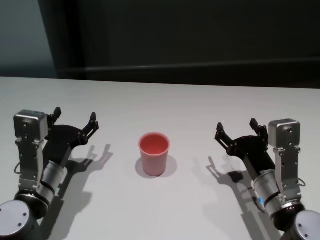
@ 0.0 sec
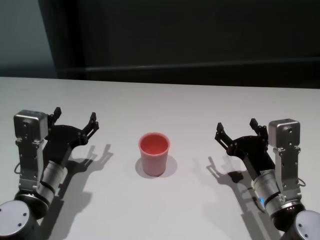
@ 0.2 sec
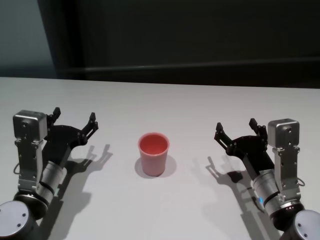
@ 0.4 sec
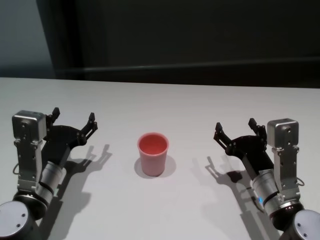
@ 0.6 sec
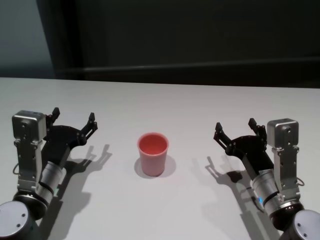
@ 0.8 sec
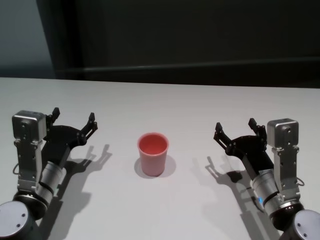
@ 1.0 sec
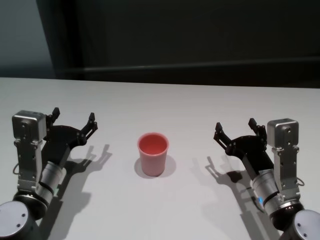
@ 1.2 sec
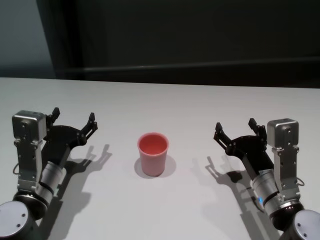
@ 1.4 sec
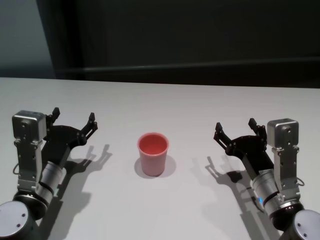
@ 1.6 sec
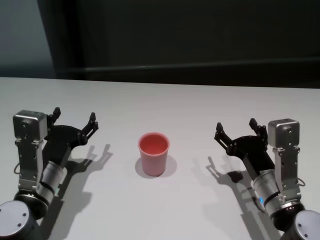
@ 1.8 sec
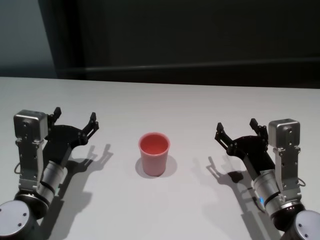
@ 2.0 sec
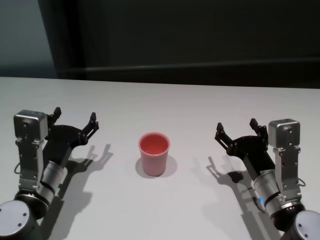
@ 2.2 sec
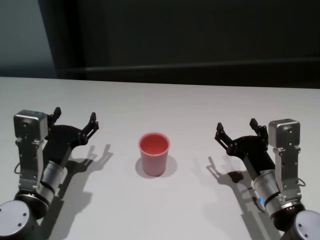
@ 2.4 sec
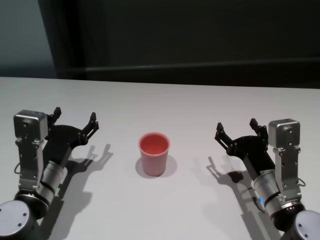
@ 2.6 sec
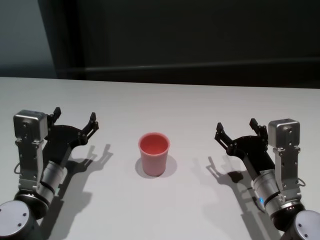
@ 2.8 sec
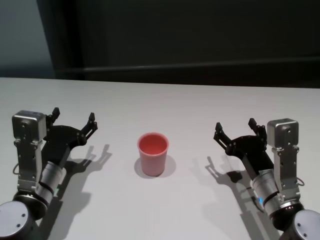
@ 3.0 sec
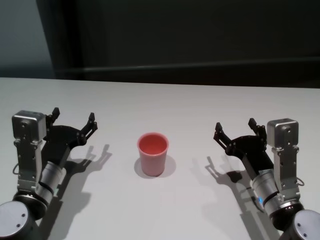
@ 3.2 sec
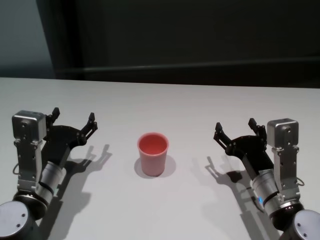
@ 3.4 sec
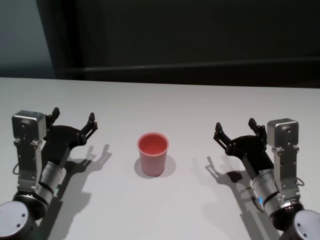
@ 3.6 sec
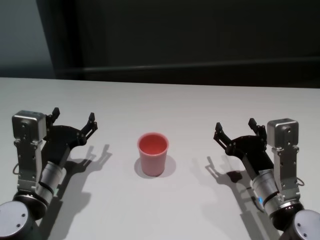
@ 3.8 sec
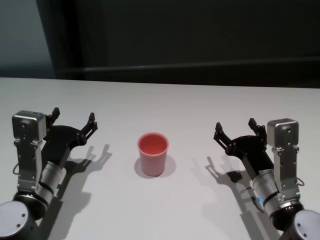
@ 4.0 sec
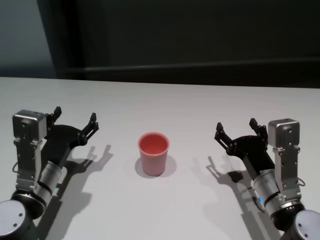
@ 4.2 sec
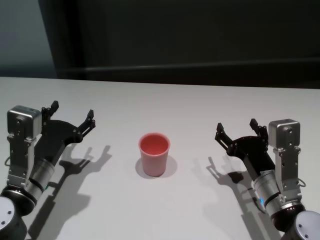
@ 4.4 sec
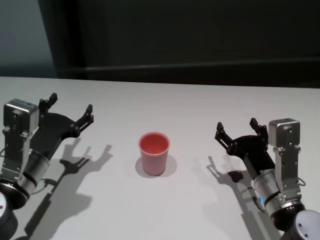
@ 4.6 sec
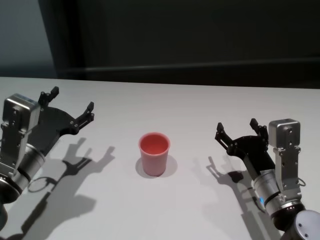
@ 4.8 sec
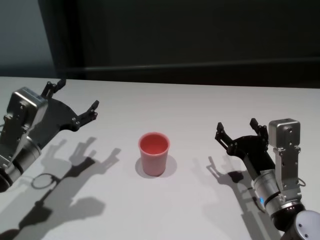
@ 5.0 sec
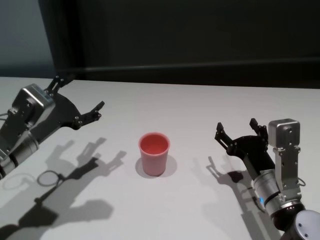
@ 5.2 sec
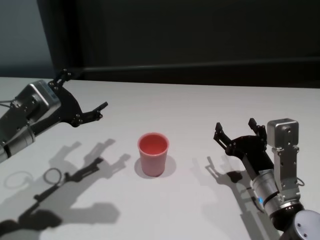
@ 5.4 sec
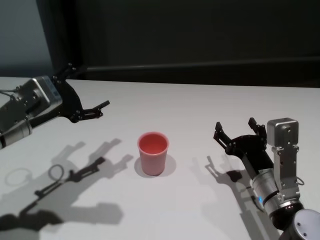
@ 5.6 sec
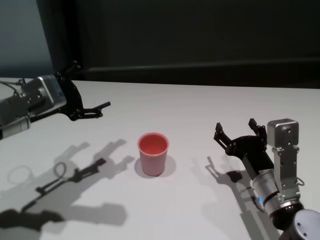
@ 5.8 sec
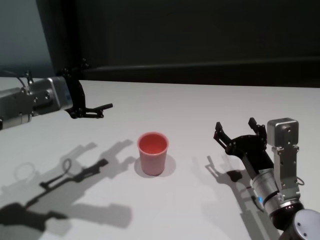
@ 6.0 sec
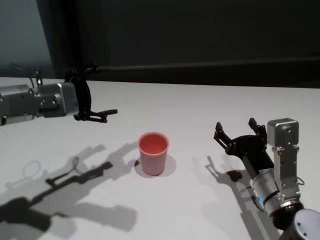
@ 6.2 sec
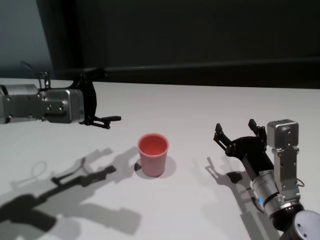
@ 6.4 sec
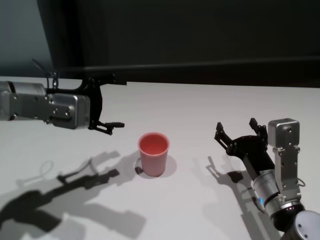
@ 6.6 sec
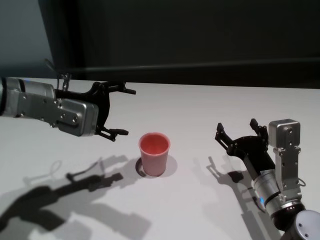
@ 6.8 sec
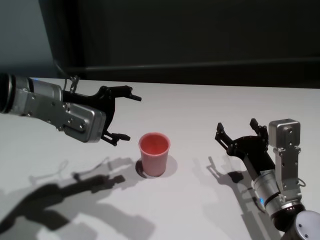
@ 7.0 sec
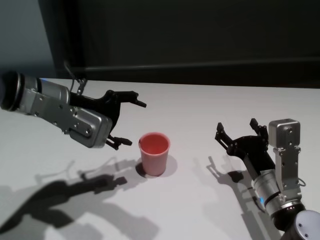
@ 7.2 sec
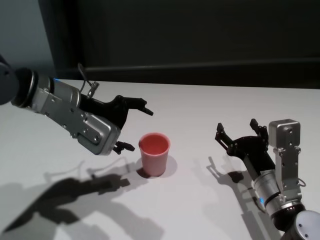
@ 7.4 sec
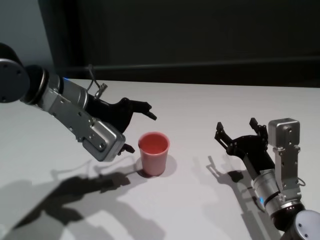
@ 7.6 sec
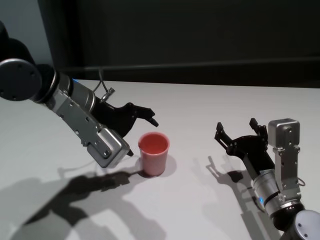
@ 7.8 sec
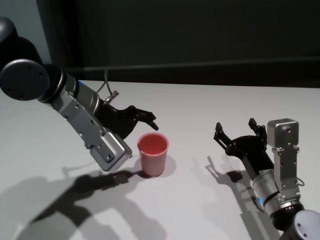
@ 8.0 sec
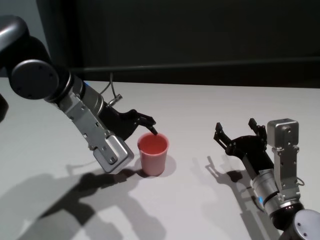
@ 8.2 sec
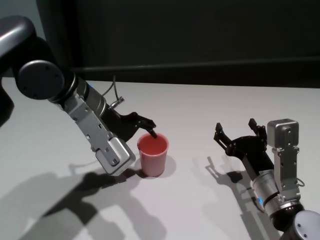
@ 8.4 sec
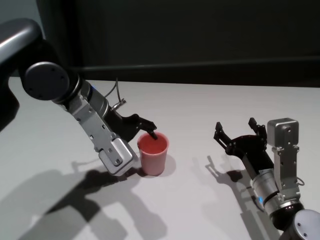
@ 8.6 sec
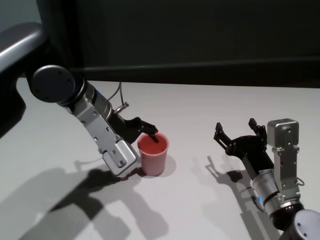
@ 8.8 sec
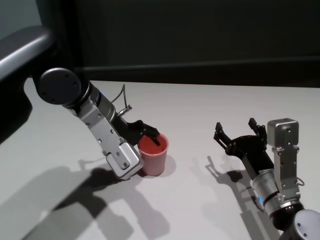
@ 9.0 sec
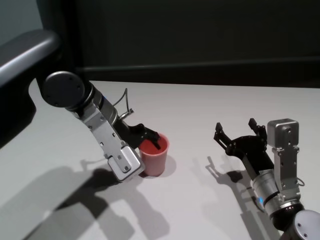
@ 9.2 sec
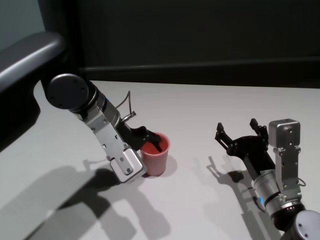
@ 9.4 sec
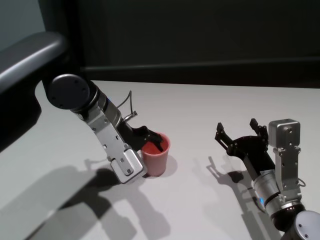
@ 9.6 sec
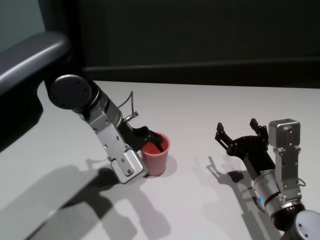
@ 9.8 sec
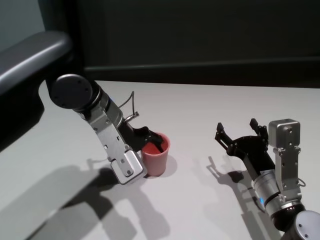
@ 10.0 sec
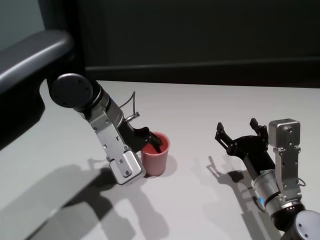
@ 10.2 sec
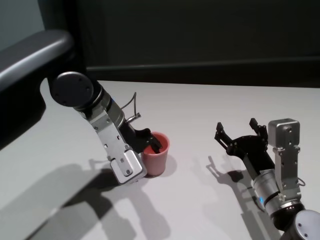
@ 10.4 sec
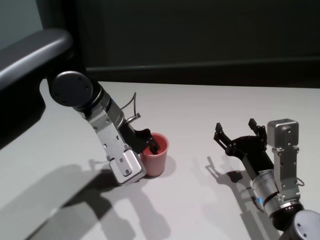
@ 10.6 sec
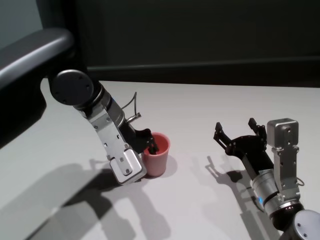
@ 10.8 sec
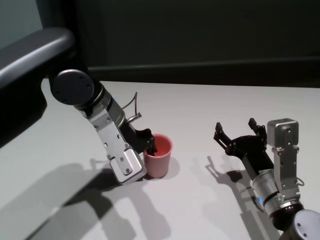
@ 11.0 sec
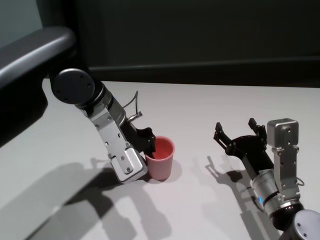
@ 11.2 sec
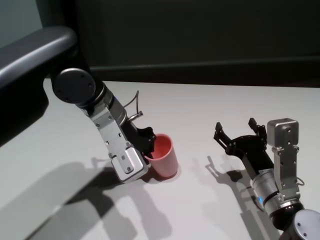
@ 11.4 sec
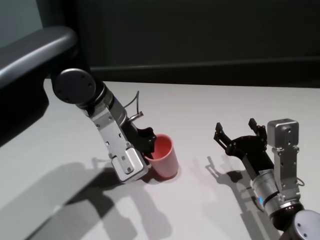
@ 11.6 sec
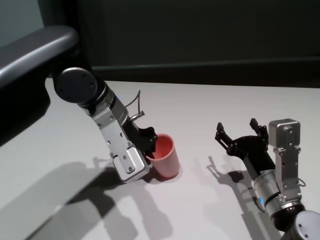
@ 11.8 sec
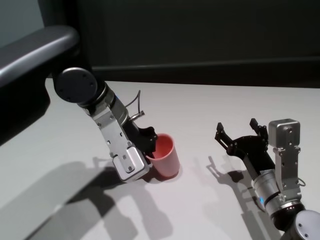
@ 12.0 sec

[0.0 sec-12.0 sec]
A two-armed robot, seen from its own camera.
Task of the whole recording: On the white table pick up the cup with one hand and transfer it to the other hand before turning it over.
Step, 0.0 sec to 11.2 sec: Grasp the cup with left gripper.

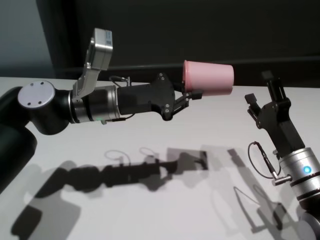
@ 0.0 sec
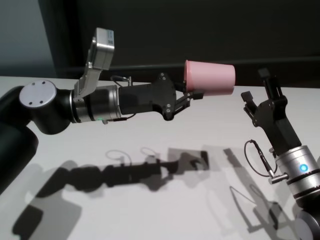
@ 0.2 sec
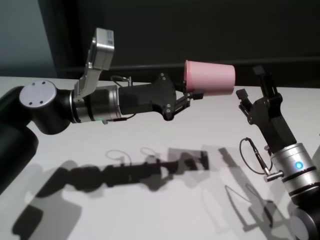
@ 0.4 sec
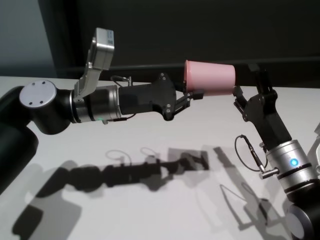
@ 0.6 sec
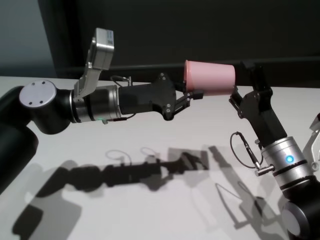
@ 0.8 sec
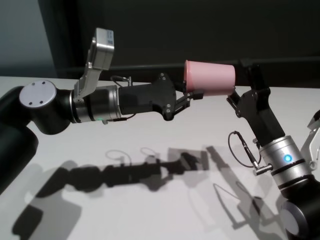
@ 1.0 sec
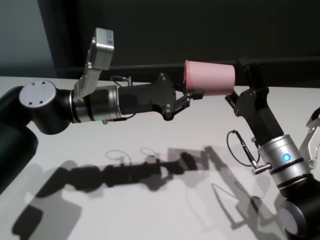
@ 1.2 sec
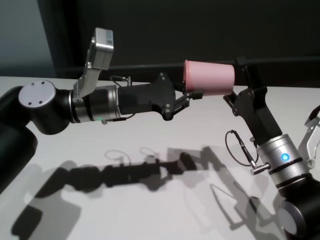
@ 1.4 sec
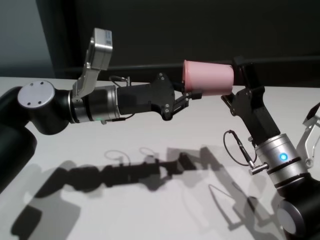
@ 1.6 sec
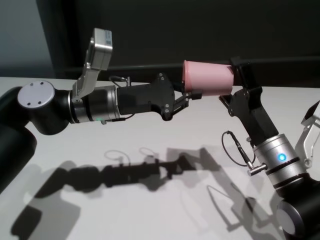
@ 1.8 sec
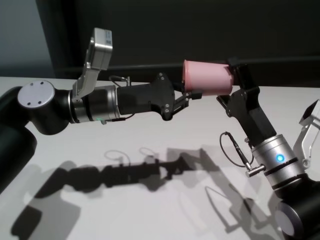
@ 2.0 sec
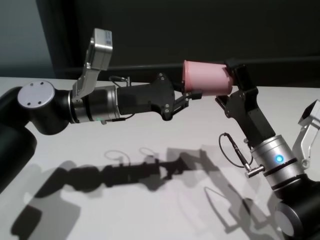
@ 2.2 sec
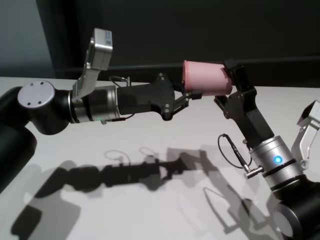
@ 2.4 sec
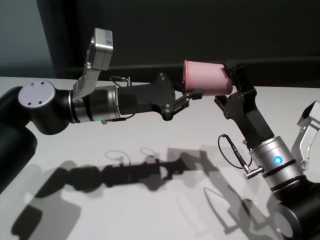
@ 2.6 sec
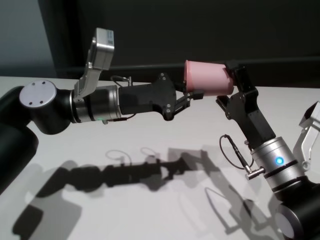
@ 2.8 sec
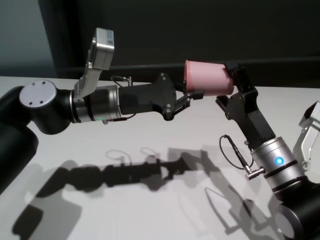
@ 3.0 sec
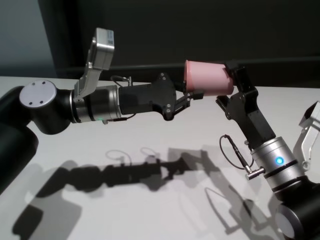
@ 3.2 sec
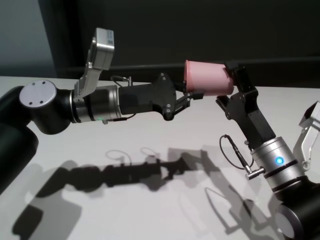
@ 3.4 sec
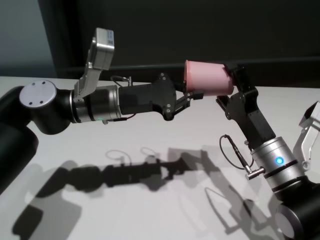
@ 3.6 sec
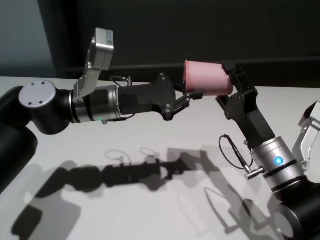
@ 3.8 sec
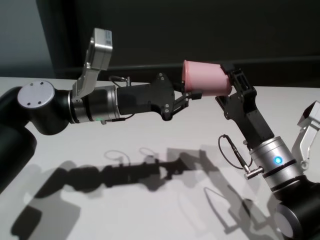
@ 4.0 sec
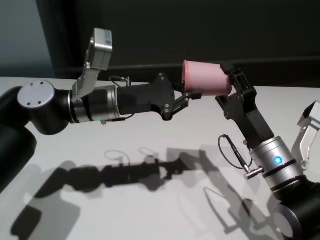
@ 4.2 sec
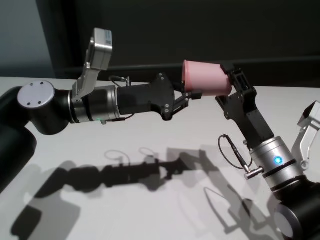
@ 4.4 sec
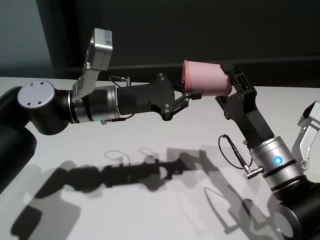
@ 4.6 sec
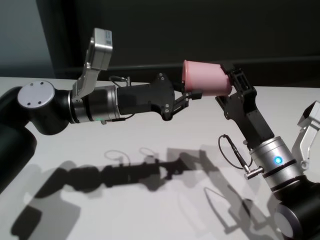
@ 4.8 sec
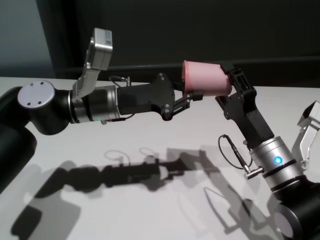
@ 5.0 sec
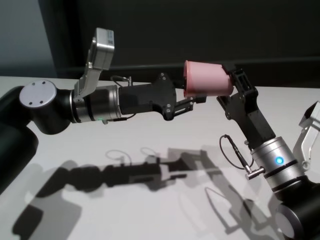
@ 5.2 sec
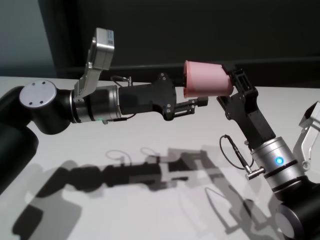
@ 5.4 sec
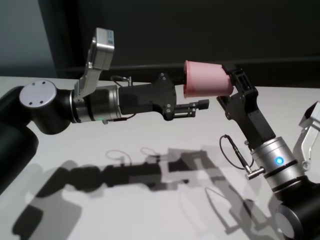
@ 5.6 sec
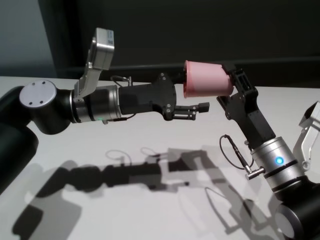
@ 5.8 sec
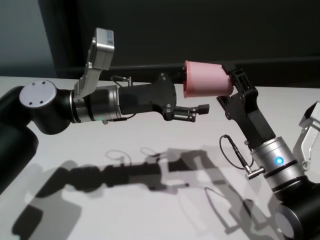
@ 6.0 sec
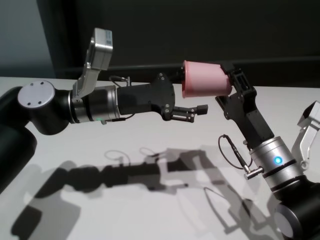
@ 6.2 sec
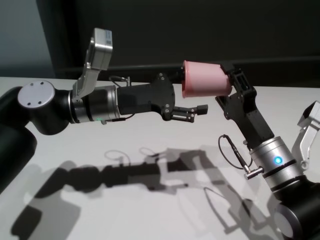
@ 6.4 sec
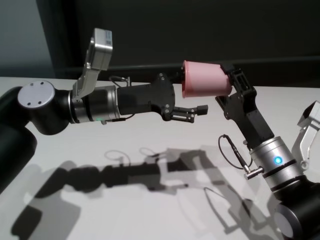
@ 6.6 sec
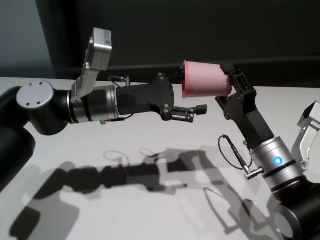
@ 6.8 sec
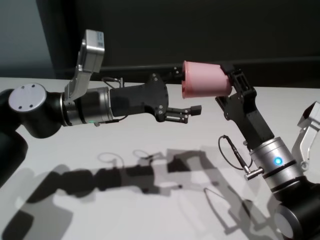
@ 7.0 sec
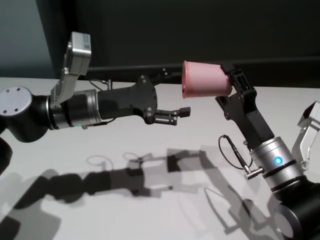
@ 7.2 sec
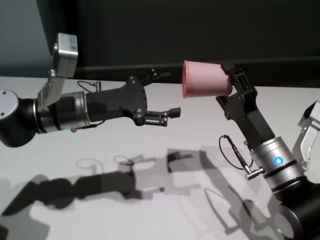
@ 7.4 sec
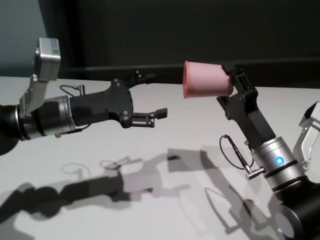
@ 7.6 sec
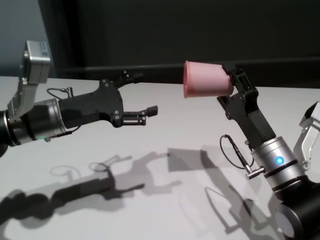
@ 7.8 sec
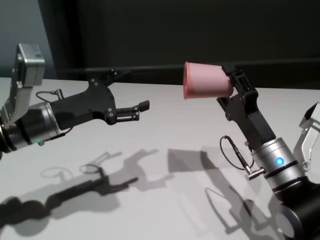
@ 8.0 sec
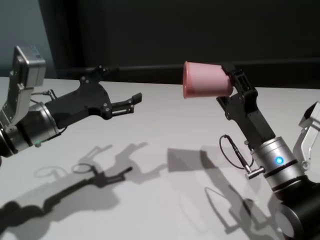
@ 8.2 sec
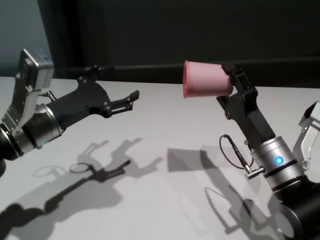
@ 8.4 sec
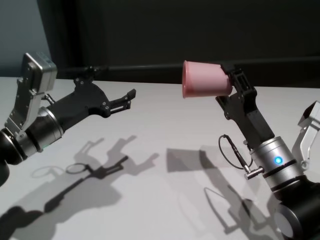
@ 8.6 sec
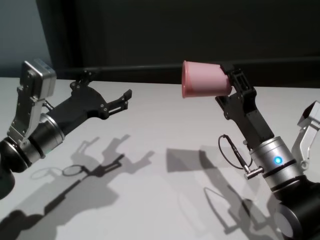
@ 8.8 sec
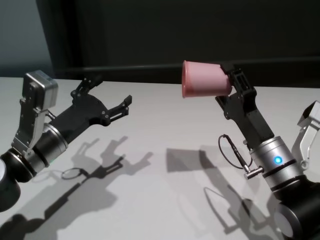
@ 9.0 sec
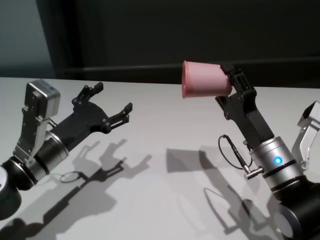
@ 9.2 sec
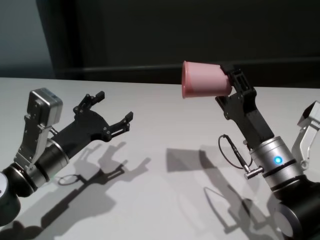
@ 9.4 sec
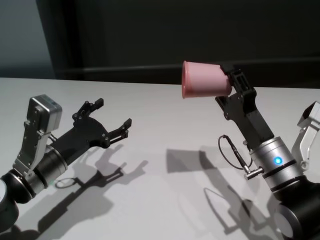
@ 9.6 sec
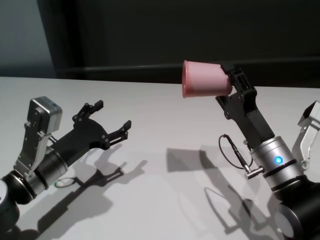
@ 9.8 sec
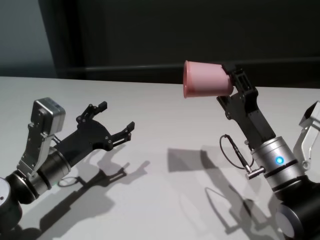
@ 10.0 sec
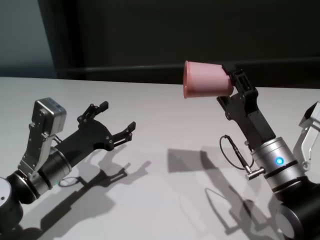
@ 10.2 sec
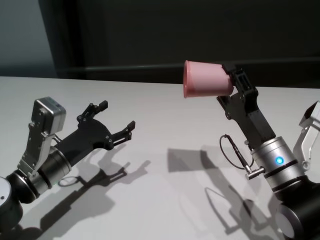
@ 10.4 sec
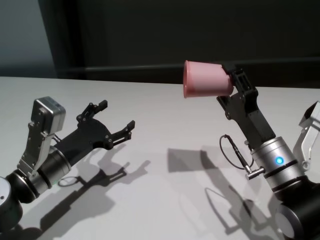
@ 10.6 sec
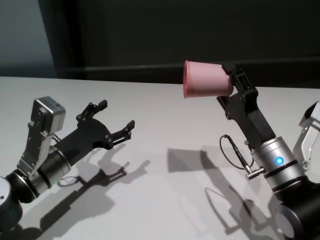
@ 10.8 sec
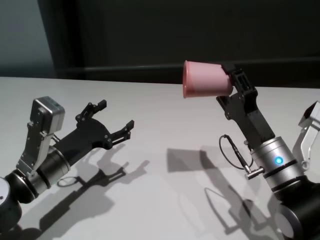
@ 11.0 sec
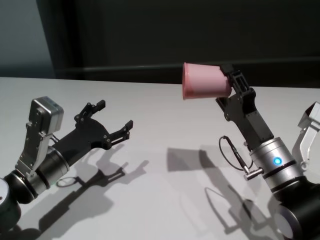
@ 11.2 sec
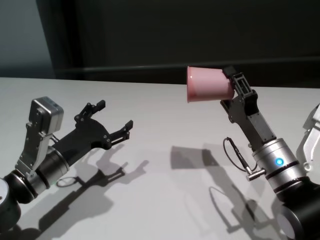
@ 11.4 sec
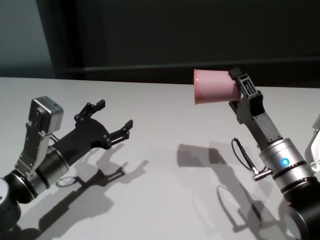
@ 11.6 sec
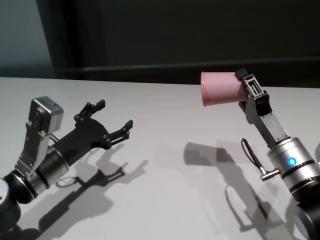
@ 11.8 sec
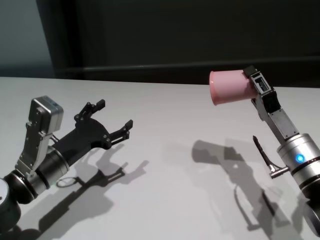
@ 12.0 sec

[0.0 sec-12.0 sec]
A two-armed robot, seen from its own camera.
Task of the whole recording: On the white table pick up the cup with one hand and transfer it to the other hand before turning it over.
Step, 0.0 sec to 7.2 sec: Pass the cup to the right gripper.
